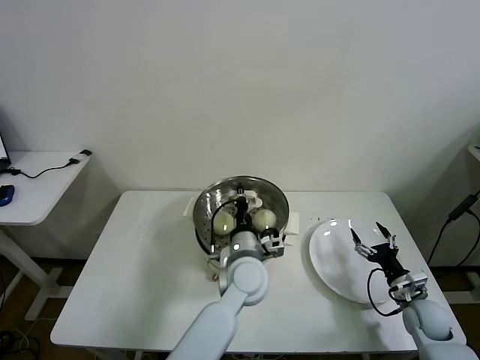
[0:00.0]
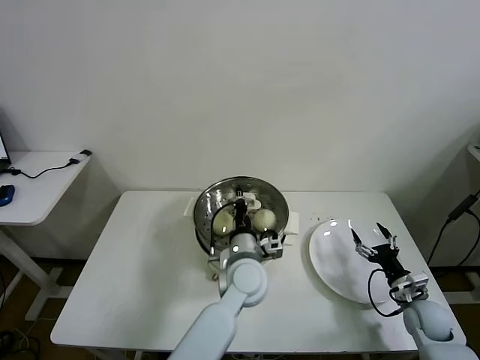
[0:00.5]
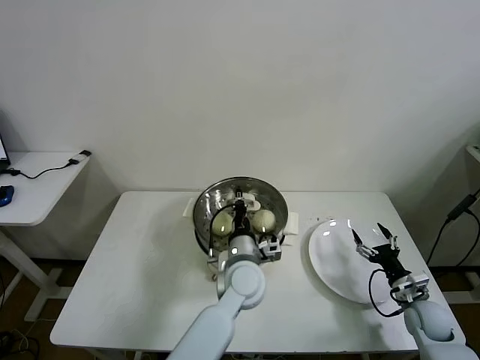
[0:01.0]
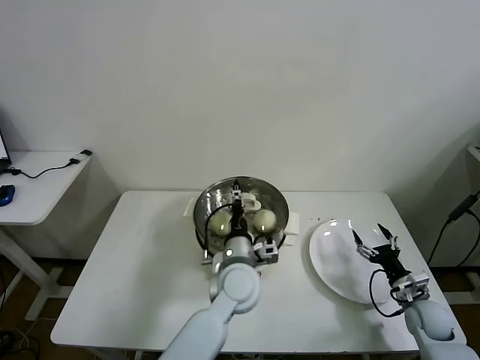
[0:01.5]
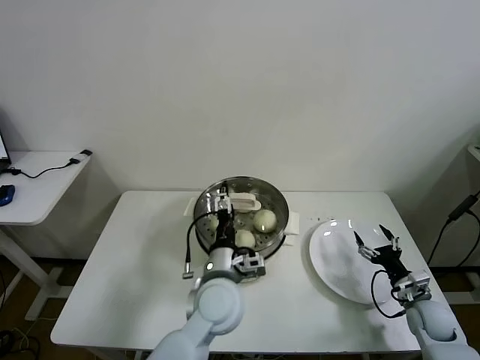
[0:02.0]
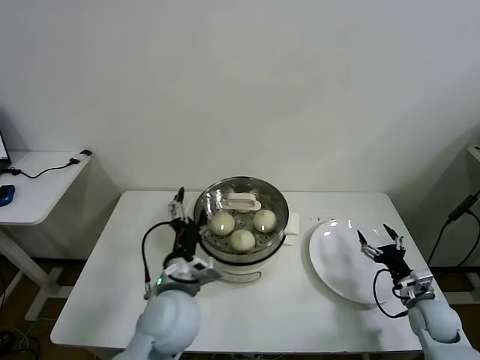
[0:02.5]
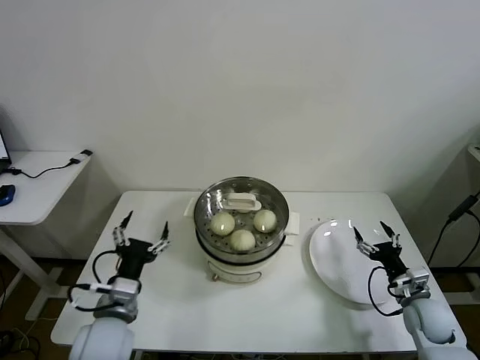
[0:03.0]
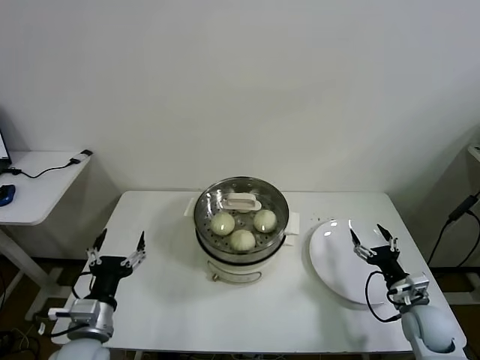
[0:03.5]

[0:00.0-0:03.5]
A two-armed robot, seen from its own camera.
Task of the whole recording: take steamed baozi put them in steamer then cover it.
0:00.0 to 0:02.0: The left gripper moves roughly 5 cm, and opens up.
0:02.0 to 0:03.5: The left gripper travels to the left and backward by approximately 25 cm.
